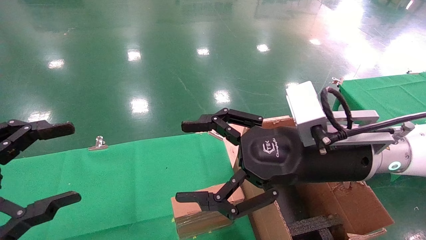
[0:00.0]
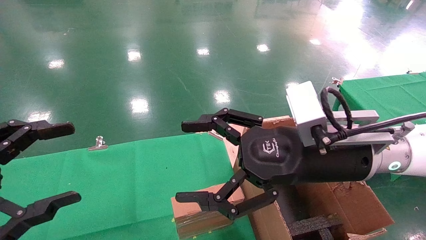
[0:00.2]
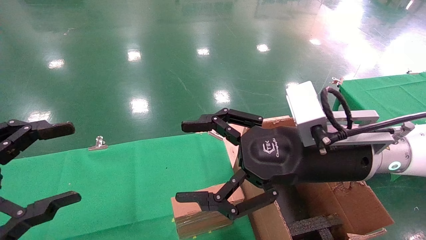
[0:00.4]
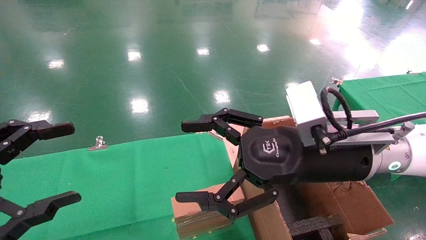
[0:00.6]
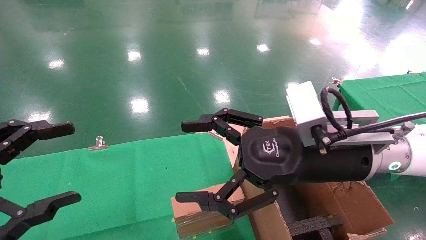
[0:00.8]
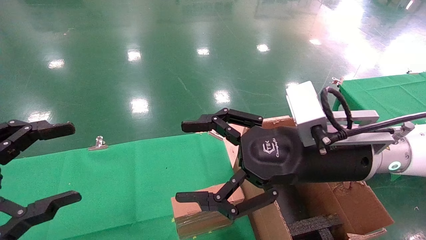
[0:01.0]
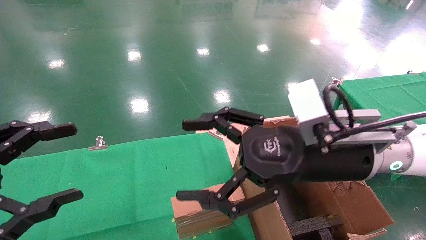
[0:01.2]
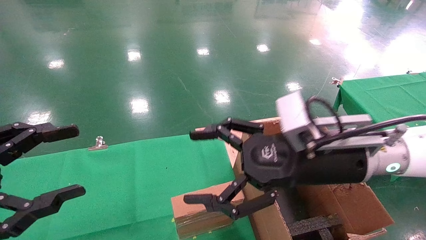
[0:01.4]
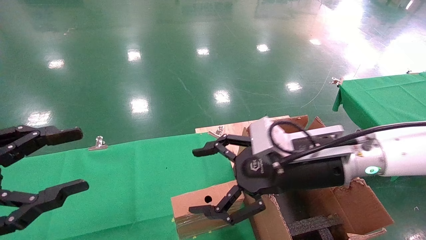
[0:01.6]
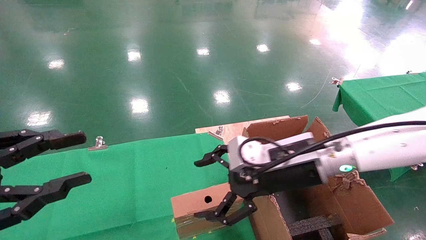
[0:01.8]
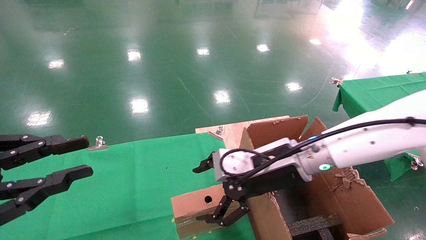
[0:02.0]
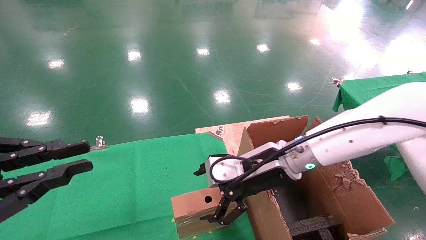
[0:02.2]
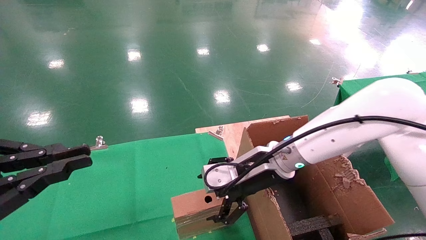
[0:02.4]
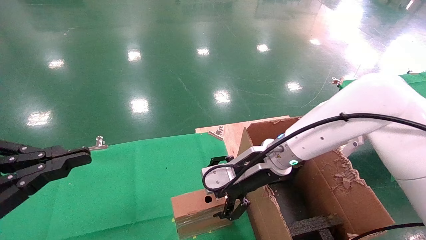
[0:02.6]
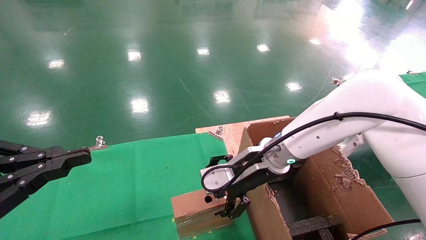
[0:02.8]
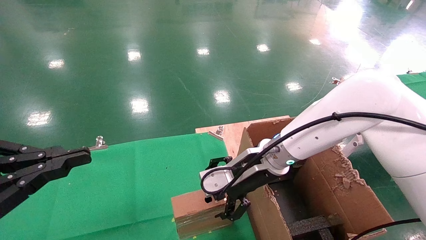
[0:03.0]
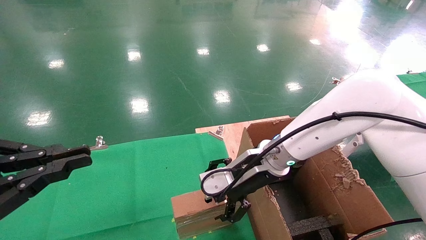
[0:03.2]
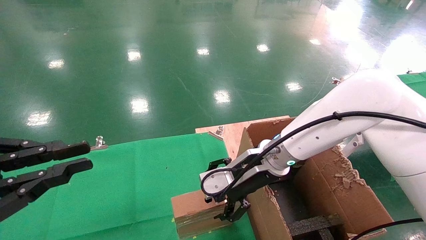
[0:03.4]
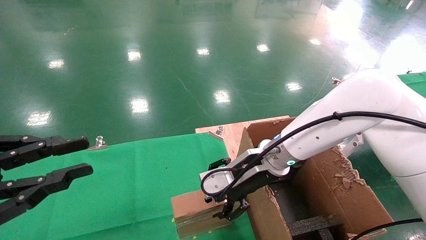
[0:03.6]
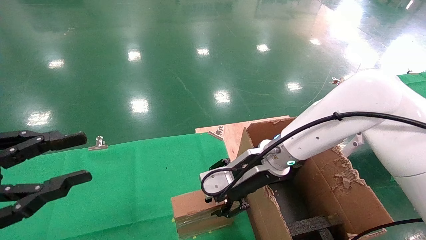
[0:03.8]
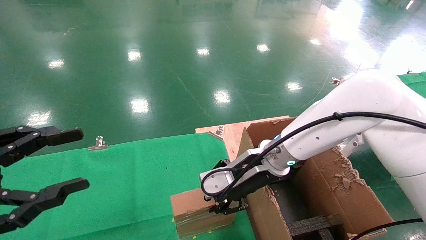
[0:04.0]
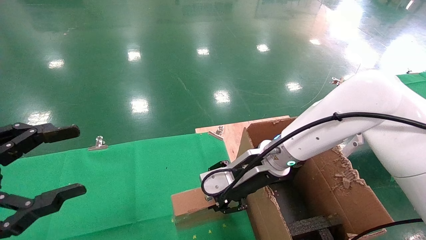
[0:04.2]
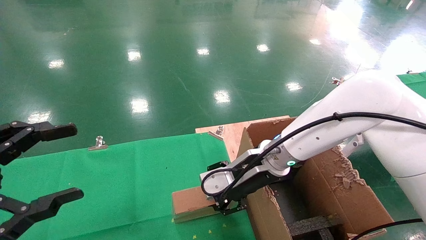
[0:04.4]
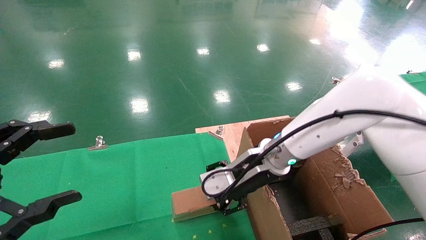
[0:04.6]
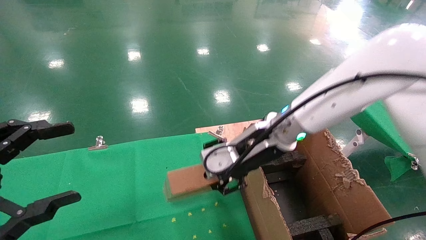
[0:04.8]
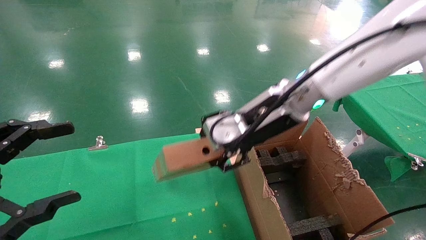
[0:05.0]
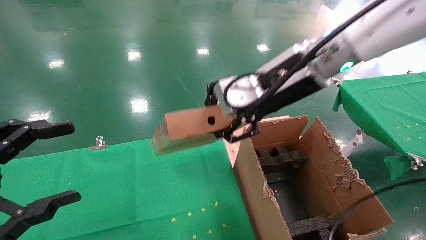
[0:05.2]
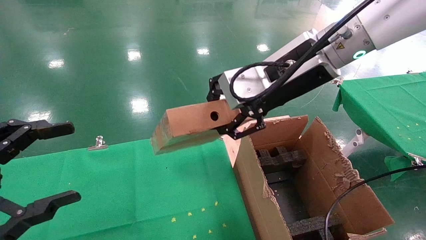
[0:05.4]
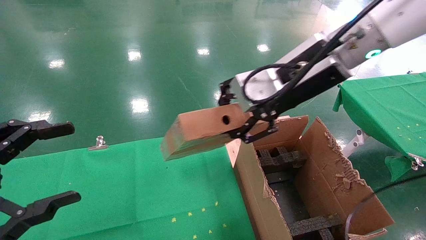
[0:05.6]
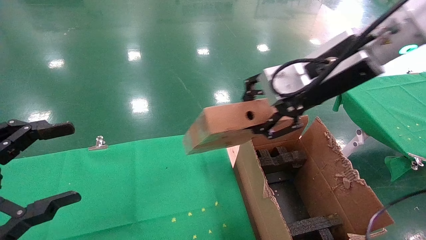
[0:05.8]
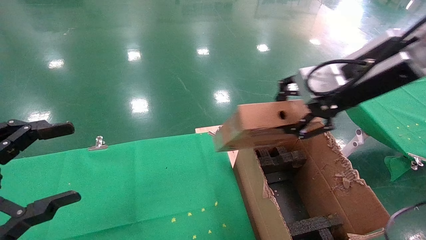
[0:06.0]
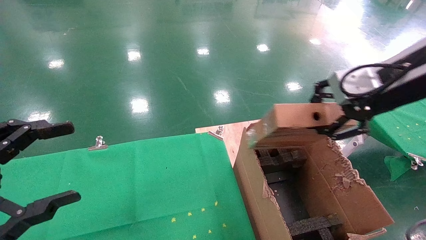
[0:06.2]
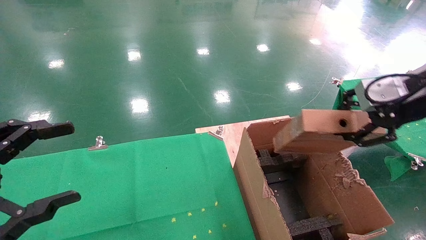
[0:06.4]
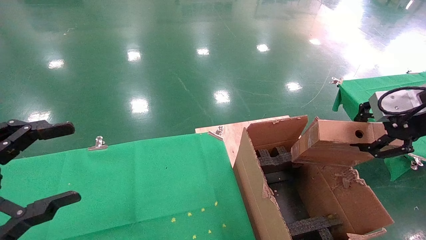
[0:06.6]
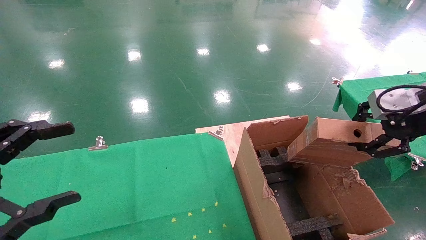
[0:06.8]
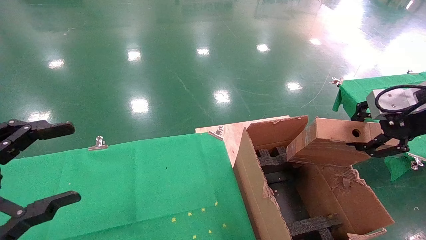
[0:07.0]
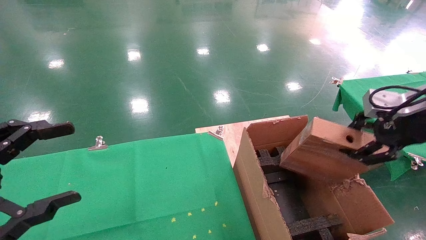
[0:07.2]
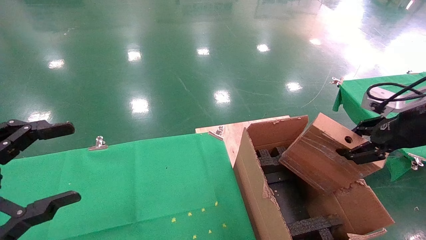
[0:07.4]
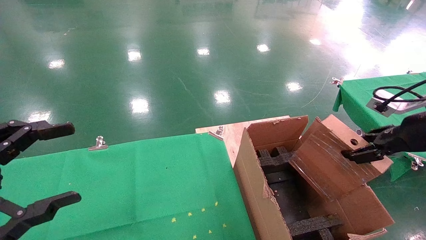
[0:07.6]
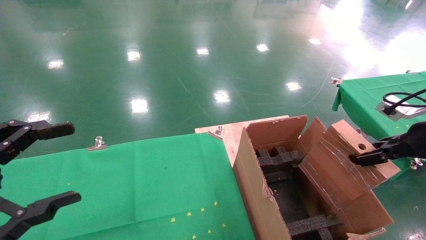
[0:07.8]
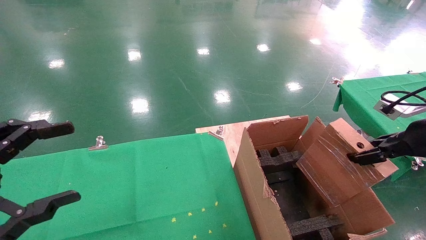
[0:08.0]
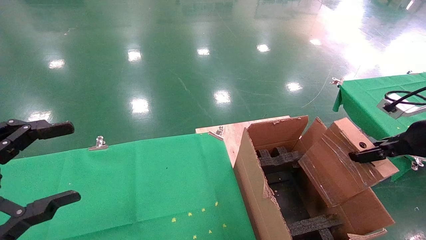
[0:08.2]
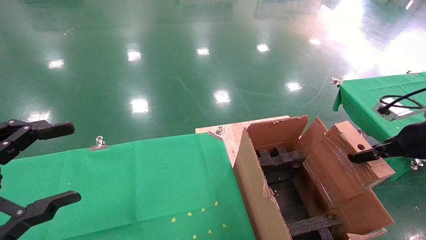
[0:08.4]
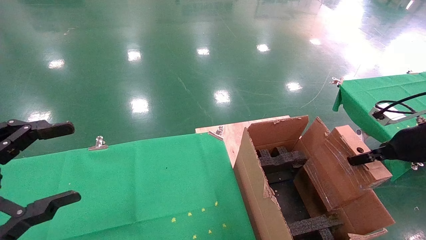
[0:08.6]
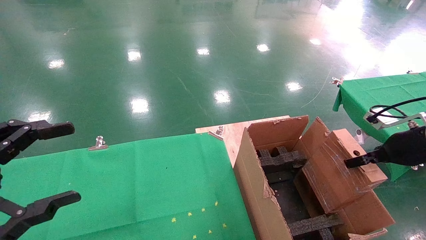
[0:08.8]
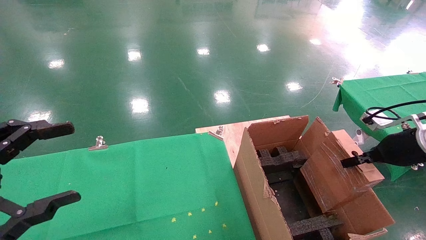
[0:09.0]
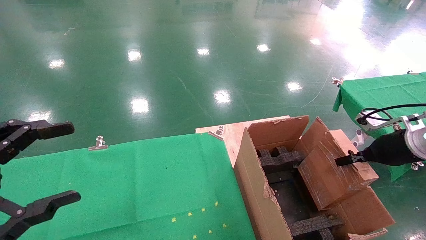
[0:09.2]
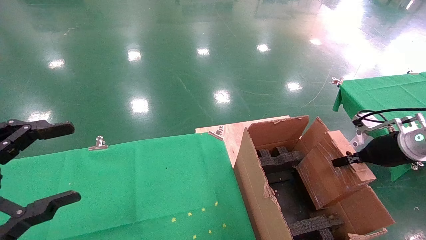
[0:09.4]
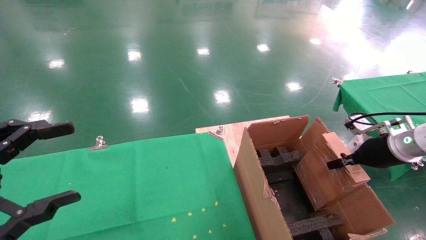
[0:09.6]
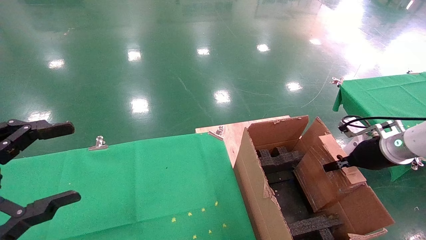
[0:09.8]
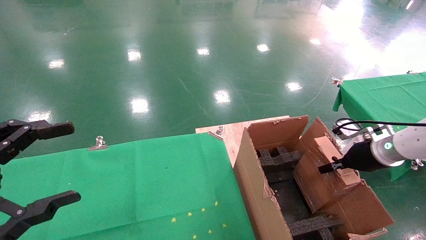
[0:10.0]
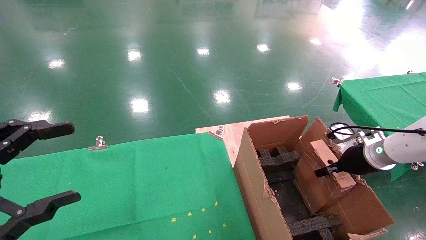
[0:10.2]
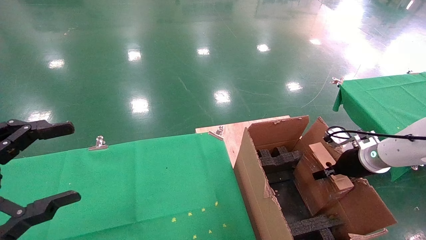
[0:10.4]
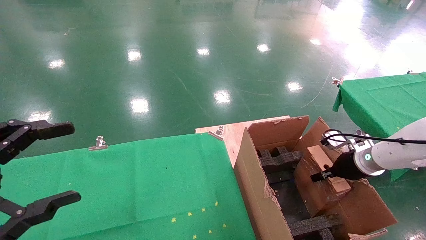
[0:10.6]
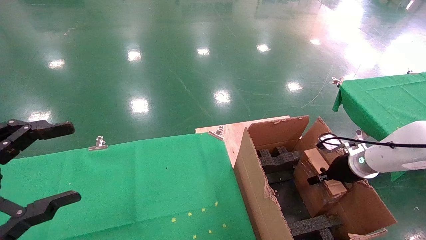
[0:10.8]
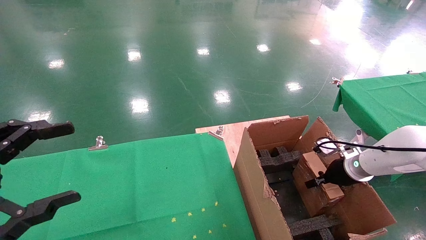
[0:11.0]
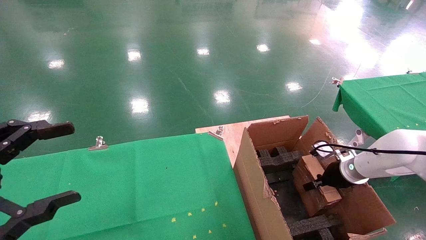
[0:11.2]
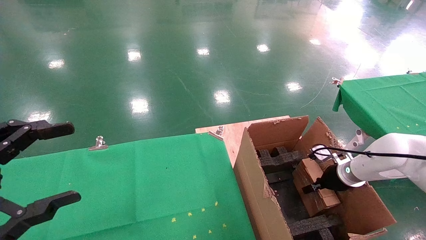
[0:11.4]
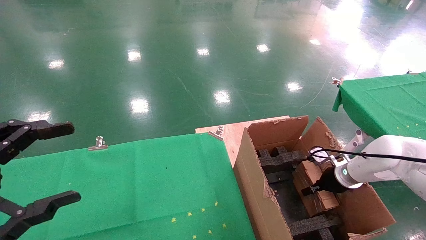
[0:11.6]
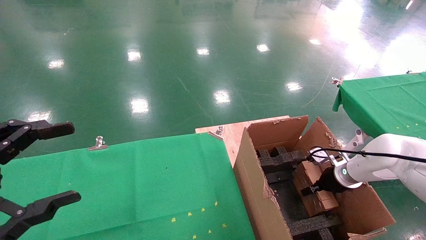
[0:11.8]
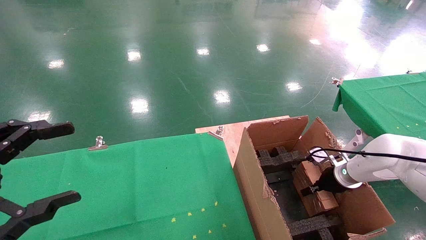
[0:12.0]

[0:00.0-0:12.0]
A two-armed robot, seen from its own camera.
Task of the whole recording: using a robotic arm to pick up a cardboard box and palace it the carton.
Step, 0:01.4 to 0:04.0: Pick up the mouse and the power cord paper box.
0:00.0 to 0:01.6: There are only small adjustments of the grippers.
0:01.6 to 0:03.0: The left gripper closes up; the right gripper goes about 10 cm forward.
0:03.0 to 0:04.4: The left gripper opens. The right gripper closes its fingers.
0:04.4 to 0:06.0: The right gripper heads upward, to the right and backward, covering about 25 cm.
0:06.0 to 0:07.6: The right gripper heads to the right and downward, covering about 20 cm.
0:07.6 to 0:09.0: The right gripper goes roughly 10 cm downward and forward.
0:09.0 to 0:10.4: The right gripper is displaced downward and forward by roughly 10 cm.
0:10.4 to 0:12.0: The right gripper travels downward by approximately 10 cm.

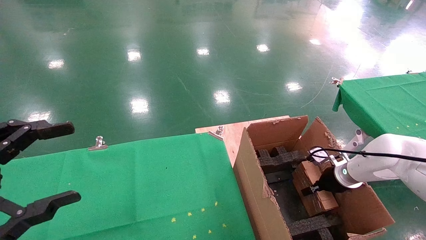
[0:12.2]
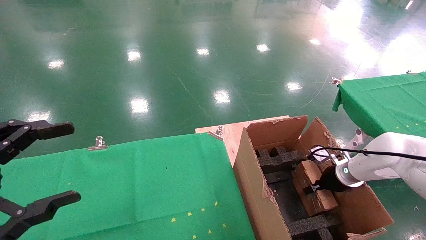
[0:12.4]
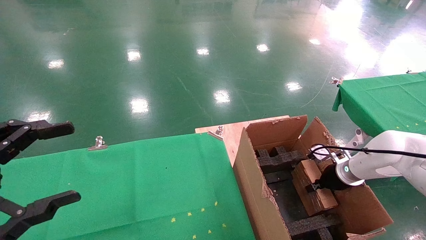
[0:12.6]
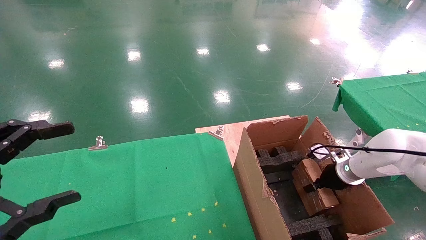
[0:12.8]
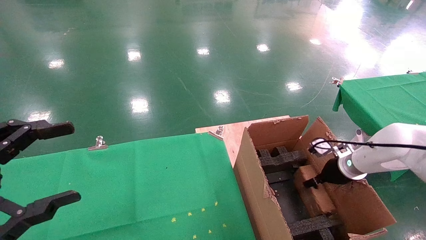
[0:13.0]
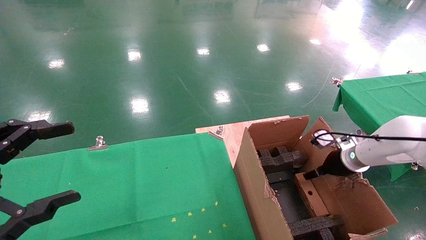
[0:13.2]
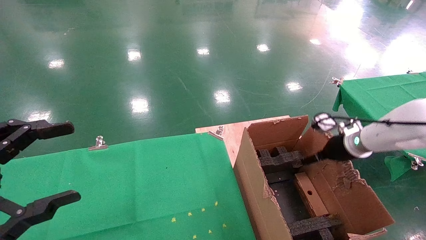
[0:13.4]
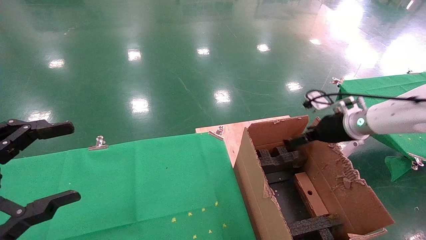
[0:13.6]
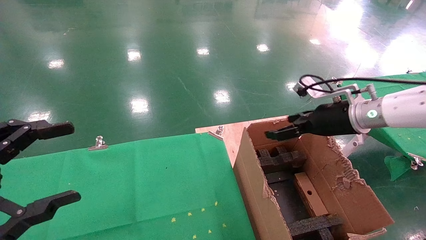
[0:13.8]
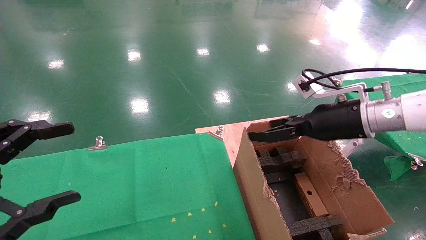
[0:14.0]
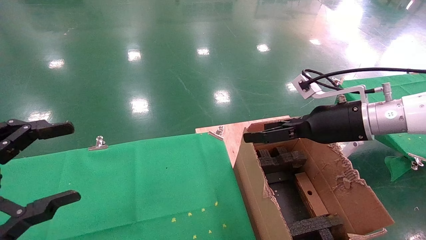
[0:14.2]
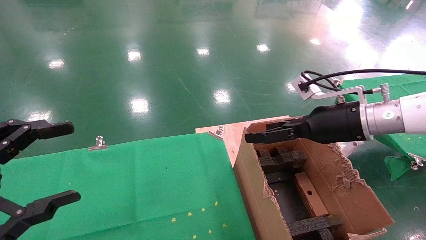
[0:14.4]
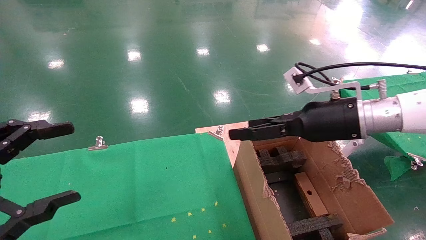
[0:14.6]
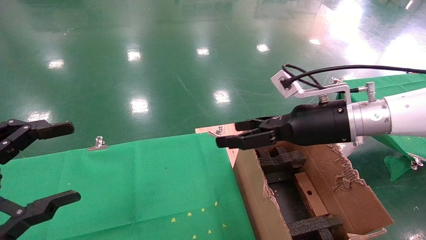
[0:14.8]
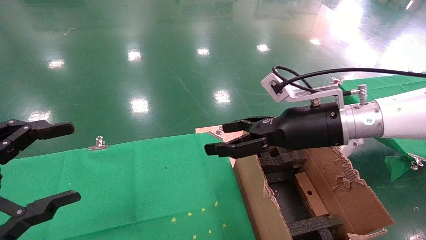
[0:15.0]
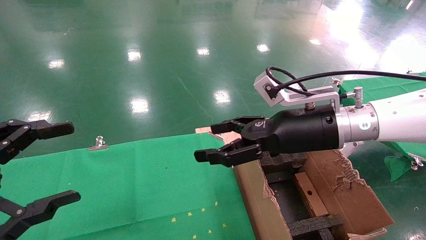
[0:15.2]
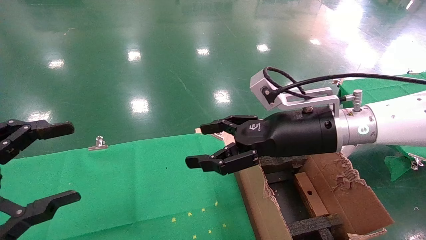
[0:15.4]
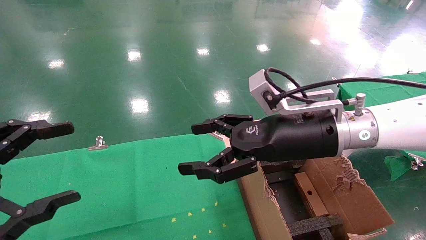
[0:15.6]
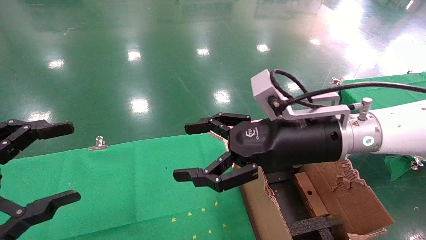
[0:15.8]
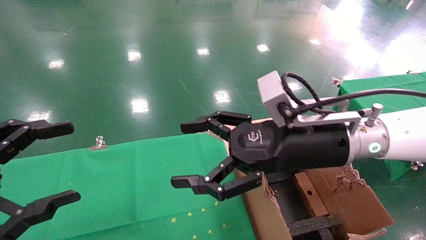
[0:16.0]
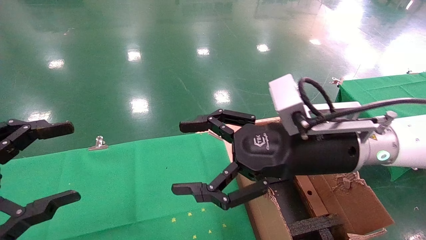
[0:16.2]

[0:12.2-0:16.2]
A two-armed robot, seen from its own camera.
Task of the whole recording: using a robotic arm to pick up a cardboard box and palace it the carton.
0:12.2 to 0:13.6: The right gripper goes approximately 15 cm upward, and opens its fingers.
0:13.6 to 0:14.8: The right gripper is displaced to the left, backward and upward by about 15 cm.
0:14.8 to 0:16.2: The right gripper moves to the left and backward, some 10 cm.
